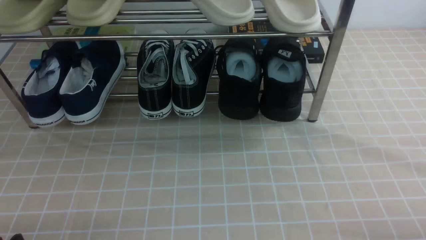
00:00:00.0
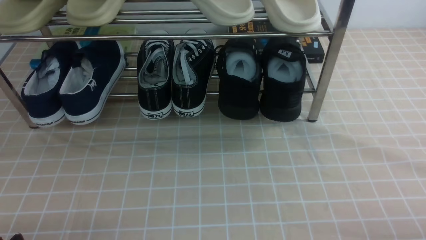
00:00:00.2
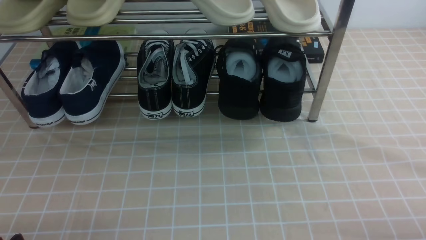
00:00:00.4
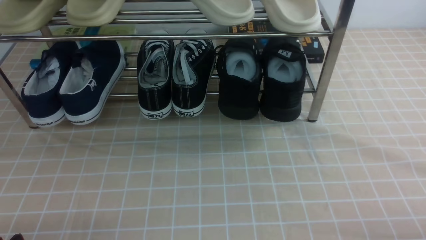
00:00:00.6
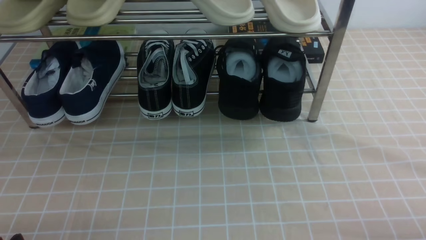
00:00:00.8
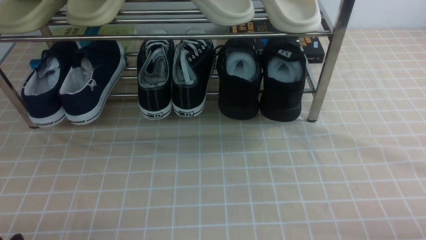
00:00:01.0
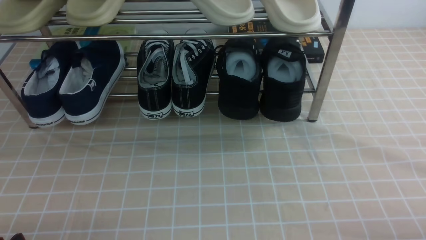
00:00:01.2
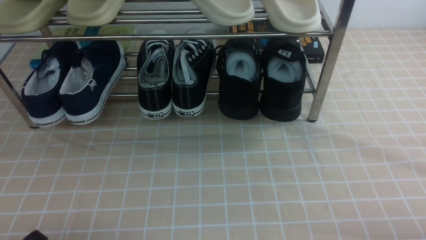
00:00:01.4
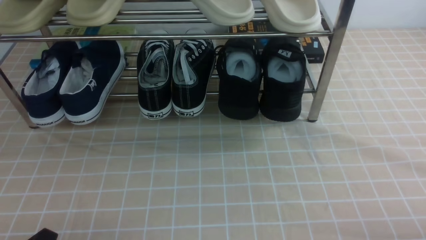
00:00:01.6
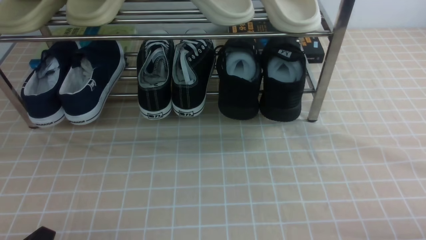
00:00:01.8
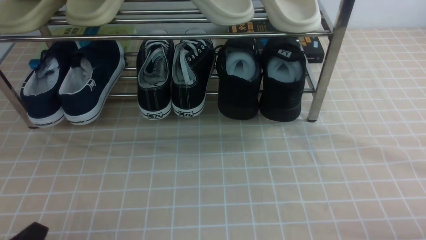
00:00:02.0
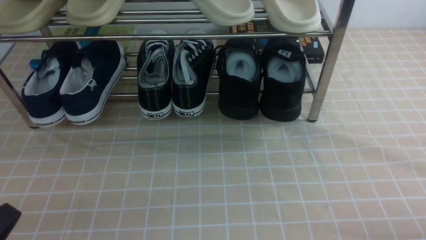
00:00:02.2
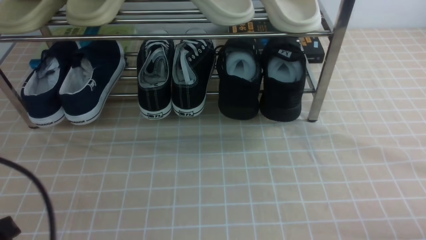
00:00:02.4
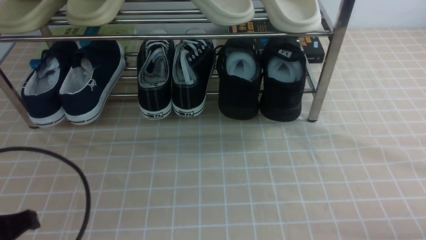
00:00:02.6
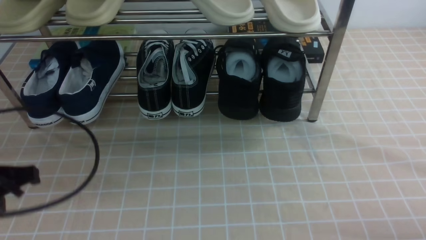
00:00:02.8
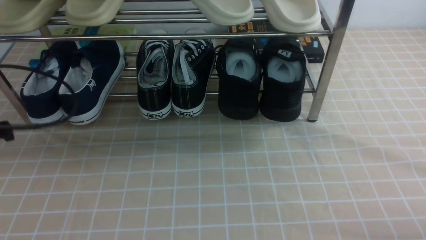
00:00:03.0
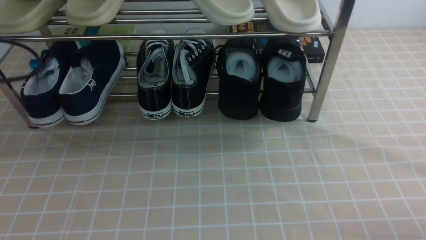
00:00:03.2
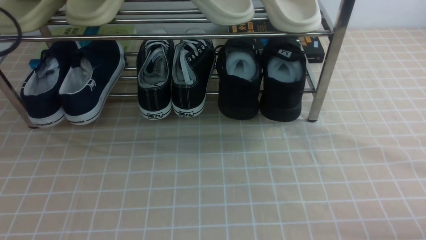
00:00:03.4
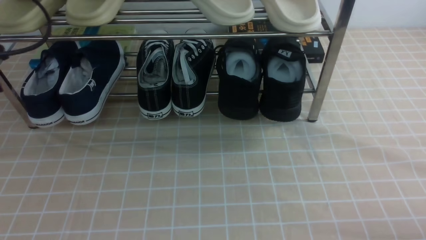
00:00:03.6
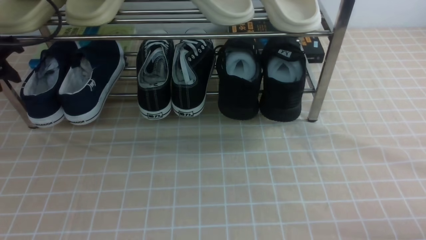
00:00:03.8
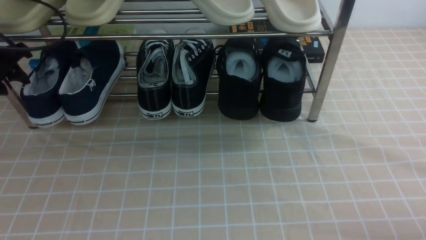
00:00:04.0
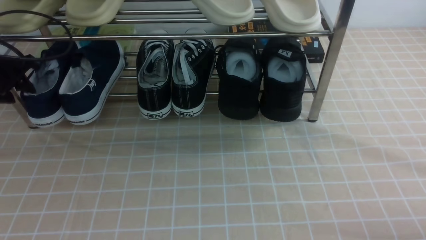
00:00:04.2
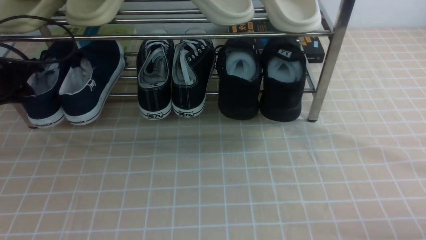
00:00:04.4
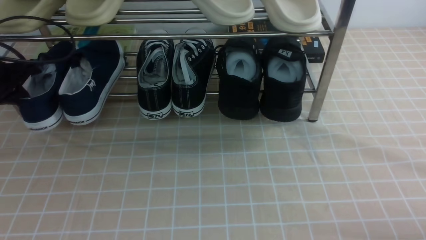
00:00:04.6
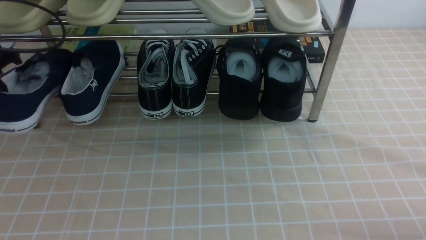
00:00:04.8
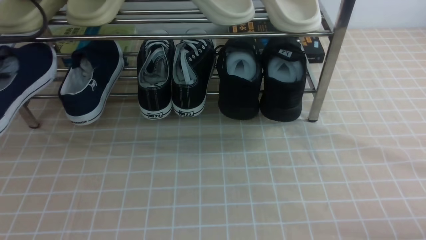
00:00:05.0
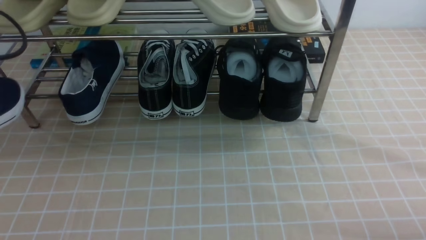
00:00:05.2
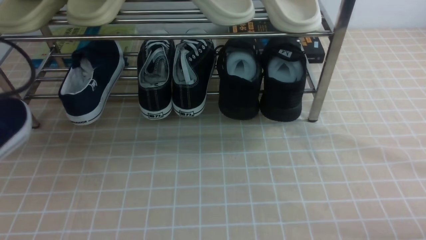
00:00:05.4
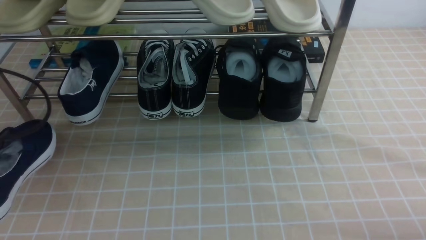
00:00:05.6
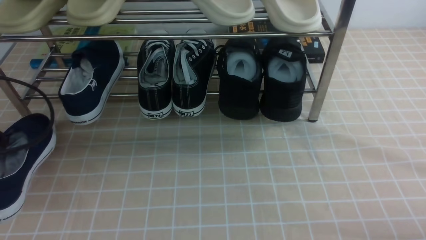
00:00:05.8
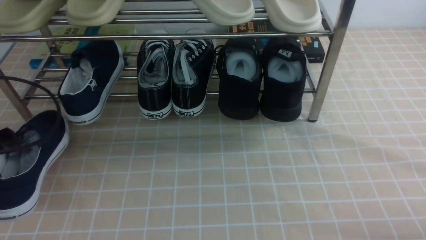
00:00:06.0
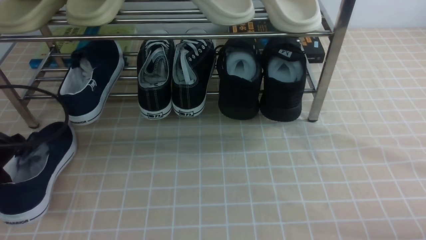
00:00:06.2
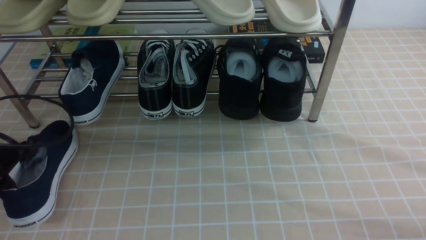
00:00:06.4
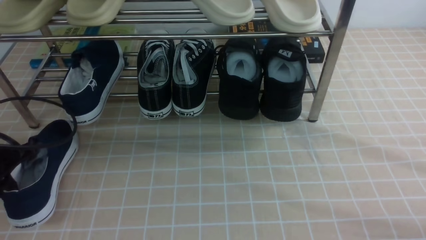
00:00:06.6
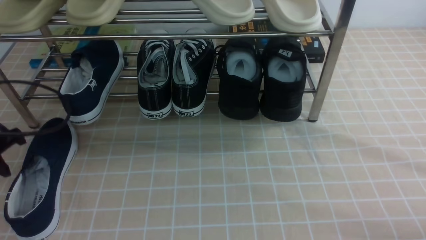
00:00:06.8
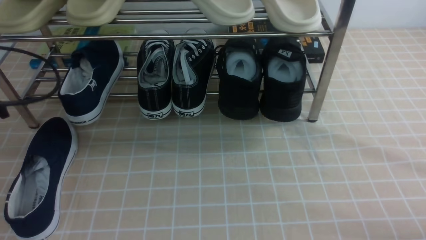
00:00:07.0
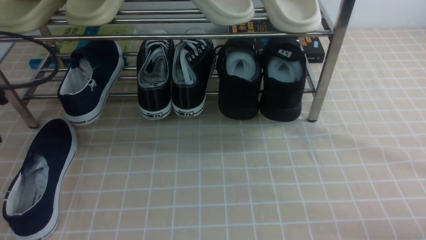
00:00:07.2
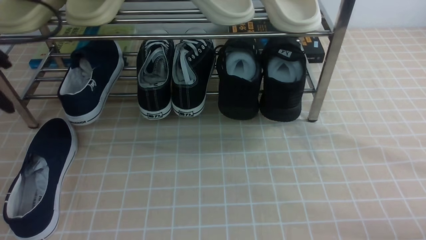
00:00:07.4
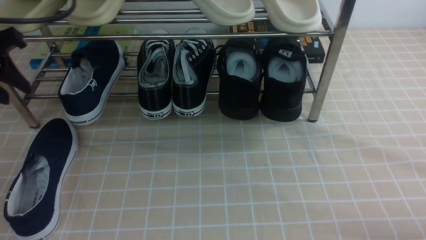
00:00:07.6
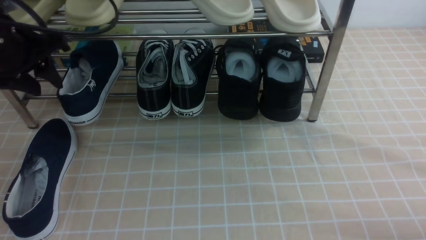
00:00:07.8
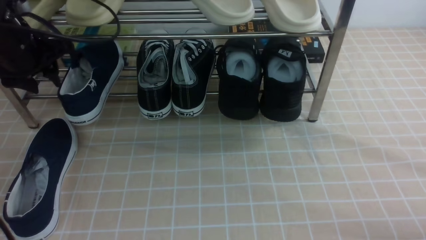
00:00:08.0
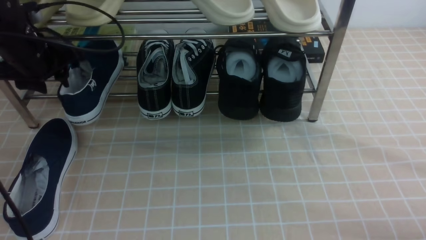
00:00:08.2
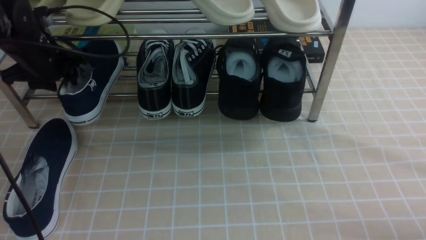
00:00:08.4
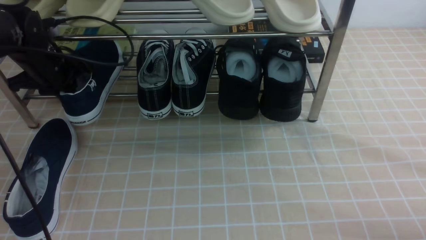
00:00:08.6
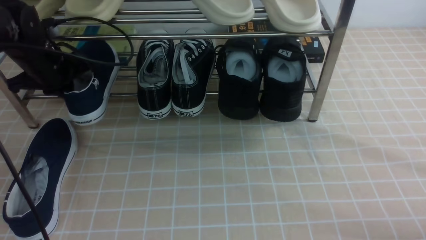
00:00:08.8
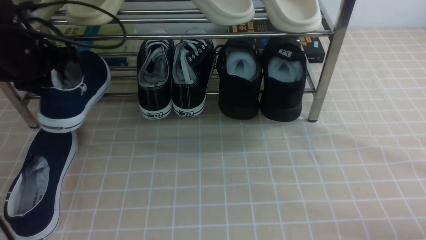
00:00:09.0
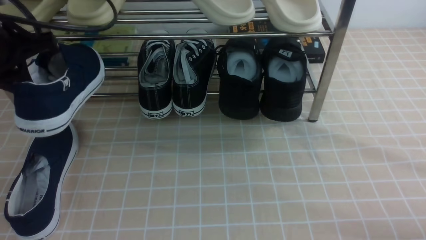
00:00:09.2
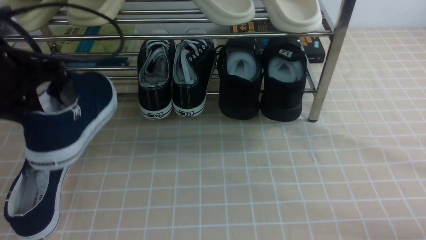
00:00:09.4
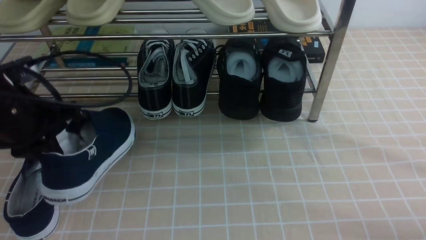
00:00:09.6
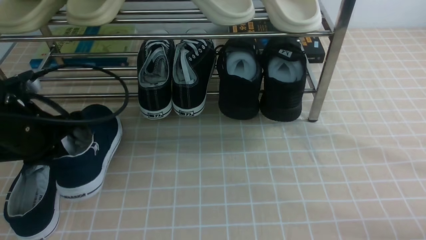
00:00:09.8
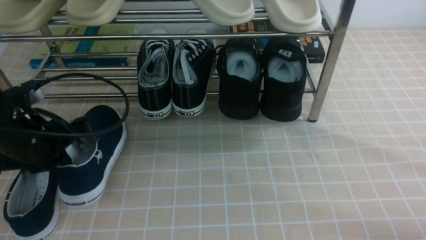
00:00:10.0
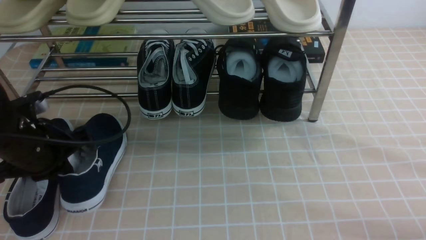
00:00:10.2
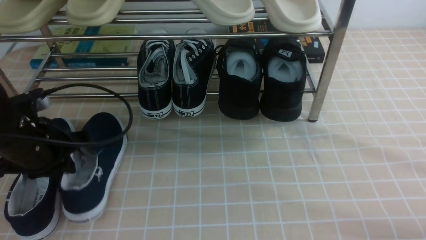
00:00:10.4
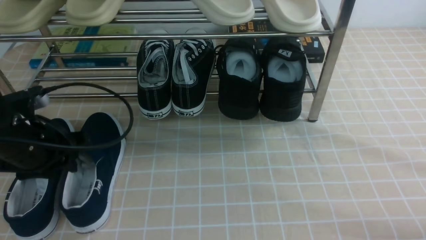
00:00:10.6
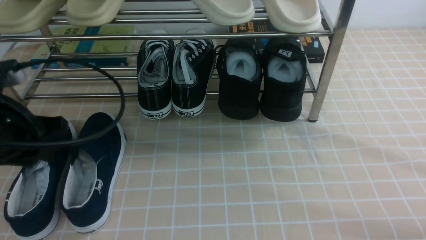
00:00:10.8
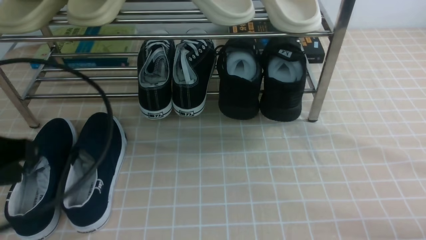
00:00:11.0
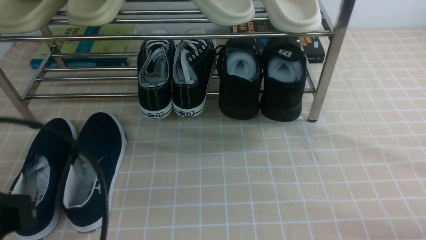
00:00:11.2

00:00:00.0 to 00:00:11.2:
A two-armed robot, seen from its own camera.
Step, 00:00:00.0 to 00:00:04.4: use the left arm to clamp a shoe on the left side of the shoe rack.
Step, 00:00:04.6 to 00:00:06.6: Use your left arm to remove the clamped shoe from the shoe rack and put it down.
Step, 00:00:06.8 to 00:00:08.4: use the left arm to clamp a shoe on the left side of the shoe rack.
Step, 00:00:08.8 to 00:00:10.4: Use your left arm to remove the clamped shoe from the shoe rack and put it down.
00:00:01.6 to 00:00:03.2: The left gripper shifts some 25 cm forward, upward and to the left, and closes.
00:00:03.2 to 00:00:04.8: The left gripper travels forward by about 10 cm, and opens and closes again.
00:00:04.8 to 00:00:06.4: The left gripper is displaced downward and backward by roughly 15 cm.
00:00:06.4 to 00:00:08.0: The left gripper heads forward, upward and to the right, covering approximately 15 cm, and opens up.
00:00:08.0 to 00:00:09.6: The left gripper moves backward, roughly 10 cm, and closes its fingers.
00:00:09.6 to 00:00:11.2: The left gripper travels backward by roughly 20 cm, and opens and closes again.

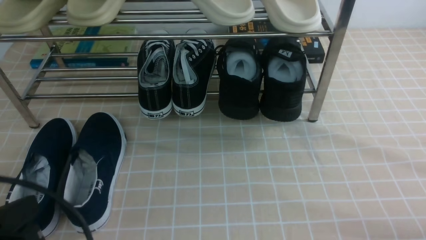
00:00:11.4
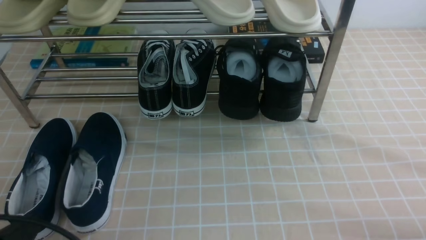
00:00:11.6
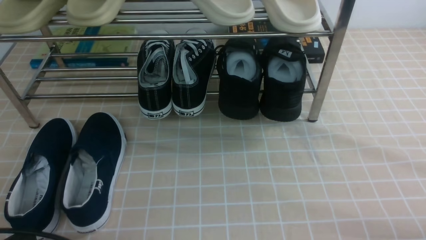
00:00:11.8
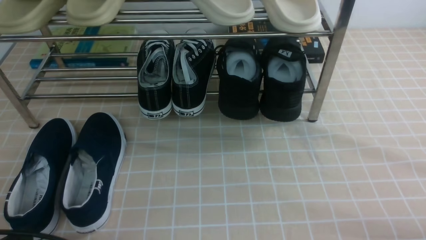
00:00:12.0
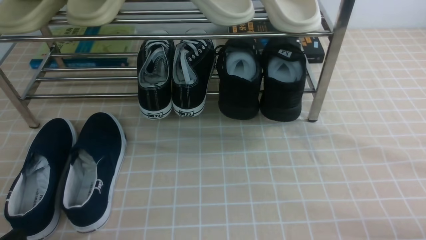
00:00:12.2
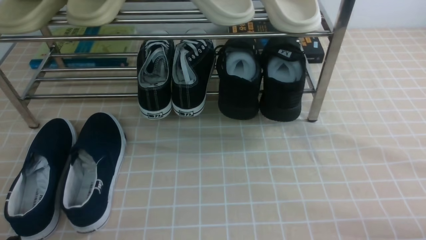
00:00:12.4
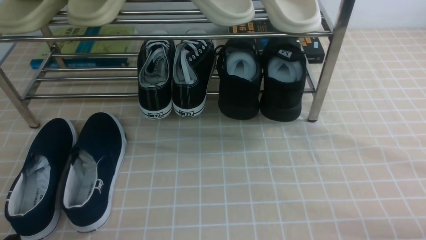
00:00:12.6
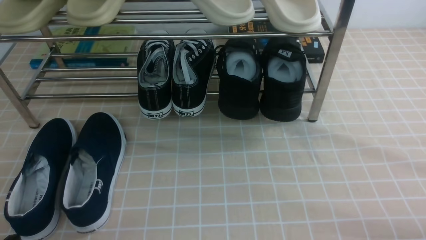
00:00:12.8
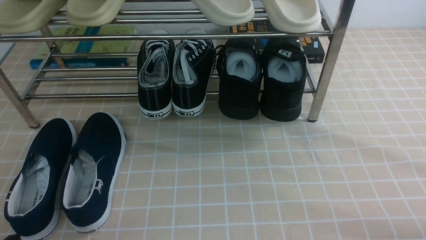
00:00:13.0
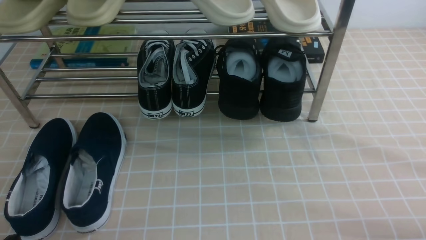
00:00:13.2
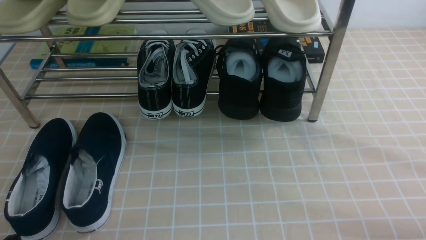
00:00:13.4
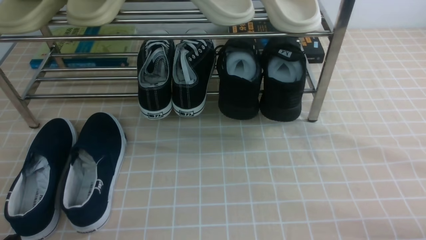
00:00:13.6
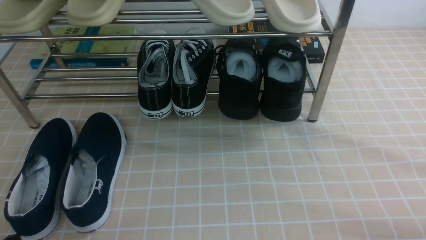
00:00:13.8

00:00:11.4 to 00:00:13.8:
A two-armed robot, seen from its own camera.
00:00:11.4 to 00:00:12.6: The left gripper travels downward by roughly 10 cm.
00:00:12.6 to 00:00:13.8: Neither gripper changes place.

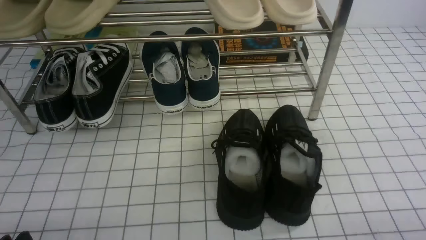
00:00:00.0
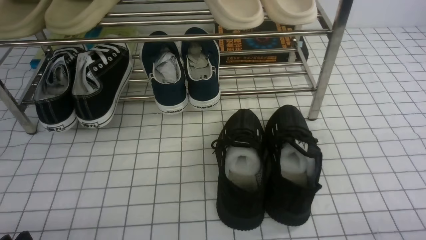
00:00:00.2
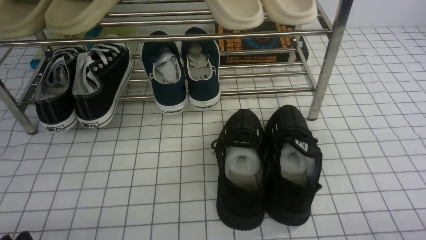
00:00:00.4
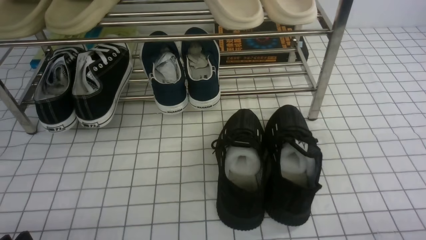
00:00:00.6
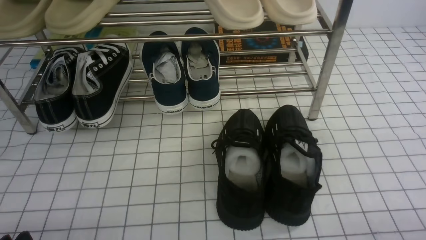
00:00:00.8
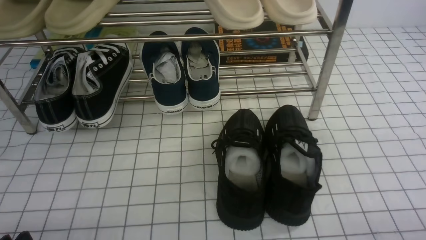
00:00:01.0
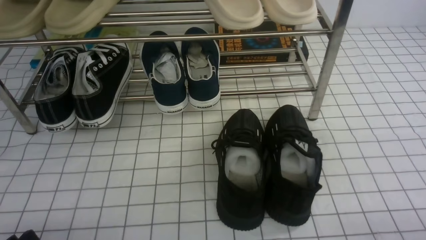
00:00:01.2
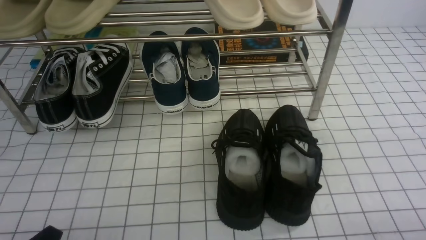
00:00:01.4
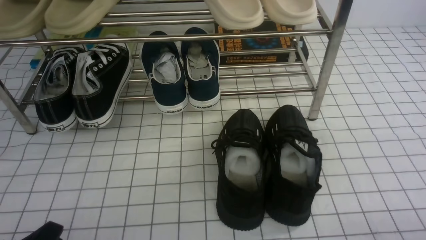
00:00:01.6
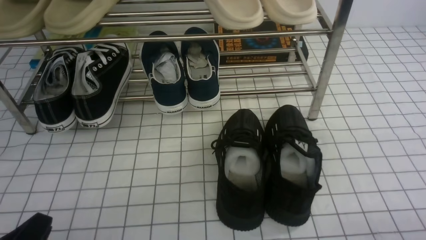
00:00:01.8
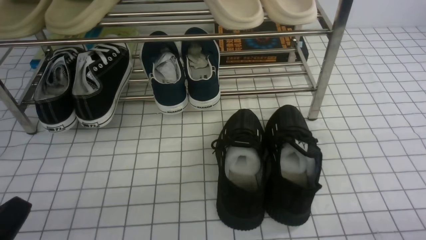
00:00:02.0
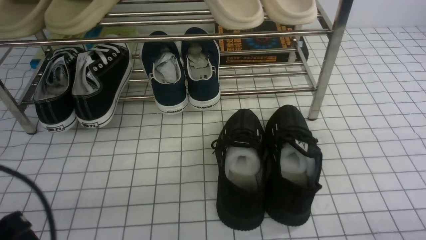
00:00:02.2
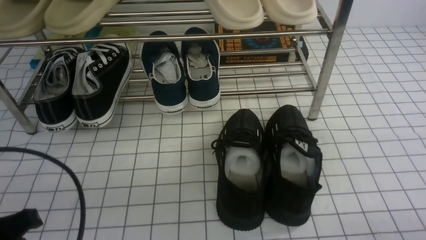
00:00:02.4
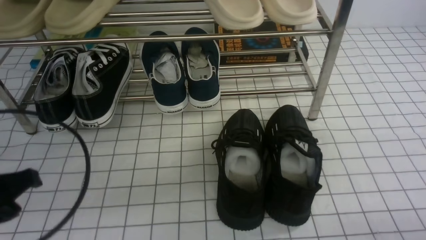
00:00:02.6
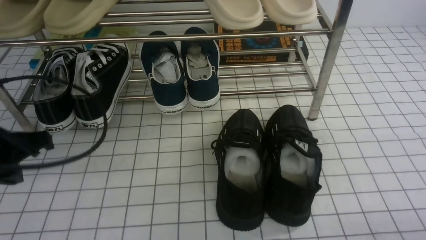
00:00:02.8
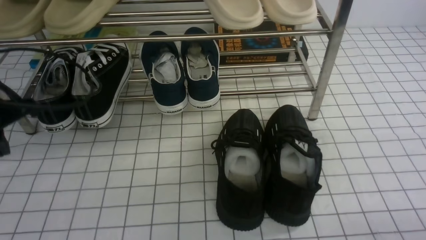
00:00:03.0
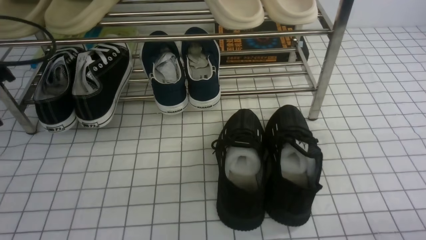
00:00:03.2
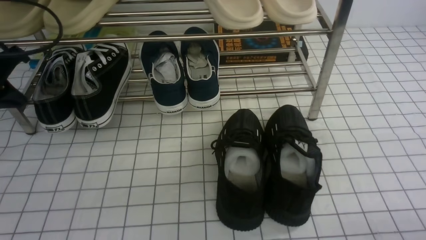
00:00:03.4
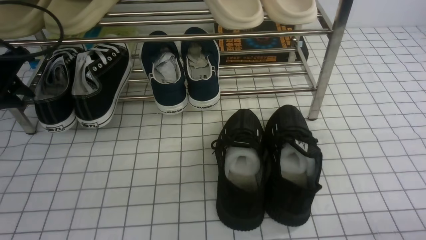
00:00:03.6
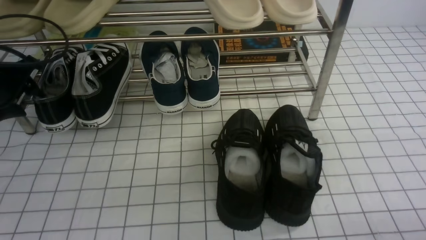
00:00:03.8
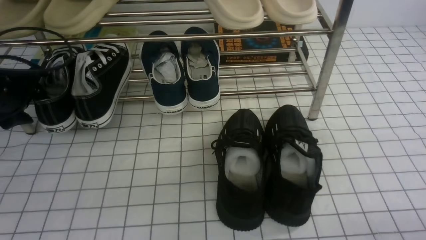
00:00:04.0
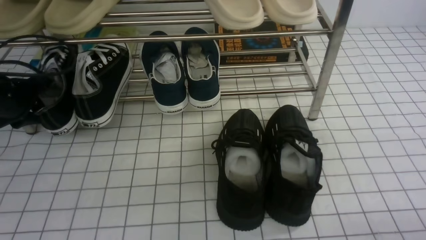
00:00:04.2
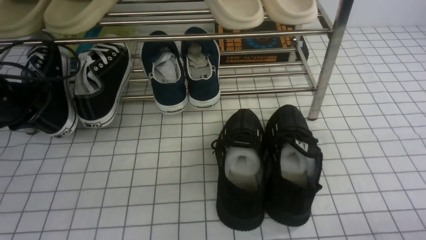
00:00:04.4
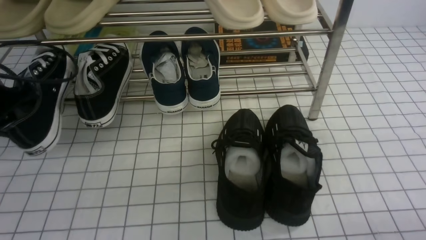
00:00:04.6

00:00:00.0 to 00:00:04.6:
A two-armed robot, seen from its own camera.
Step, 00:00:00.0 to 00:00:04.2: use the left arm to clamp a shoe on the left side of the shoe rack.
00:00:01.6 to 00:00:03.0: The left gripper shifts some 25 cm forward and upward, and closes up.
00:00:03.0 to 00:00:04.6: The left gripper travels forward by some 5 cm, and opens, then closes again.
